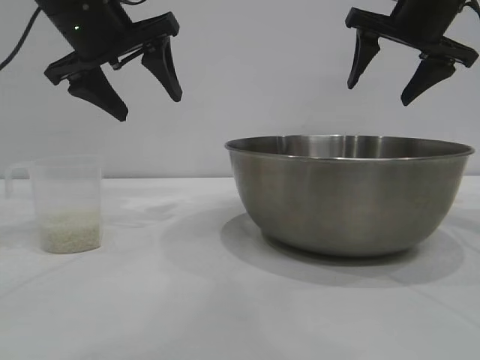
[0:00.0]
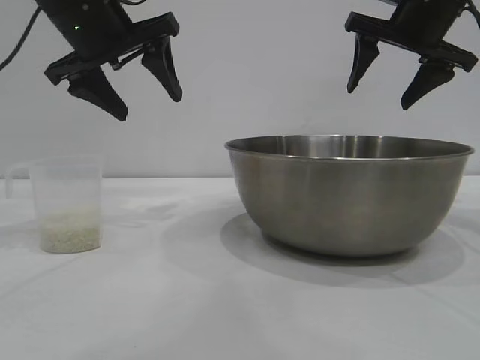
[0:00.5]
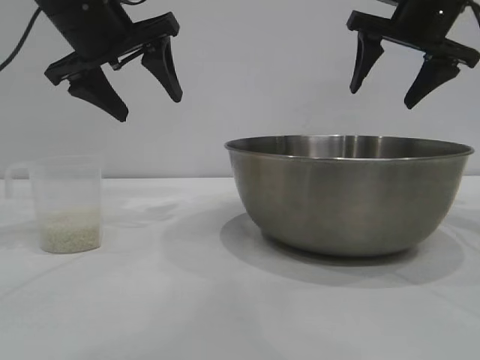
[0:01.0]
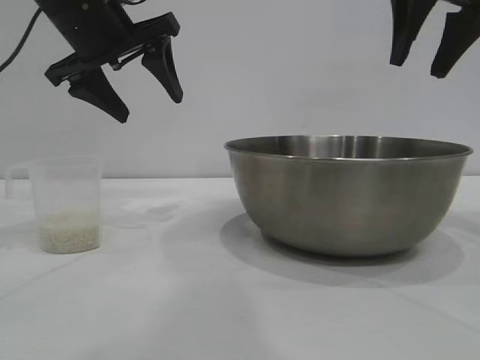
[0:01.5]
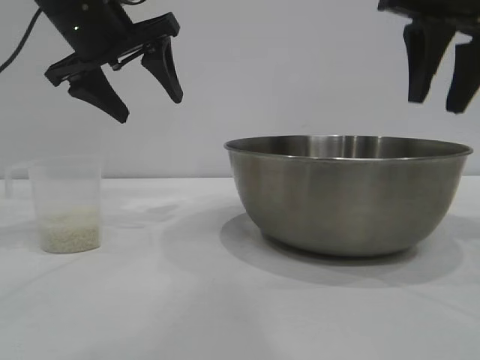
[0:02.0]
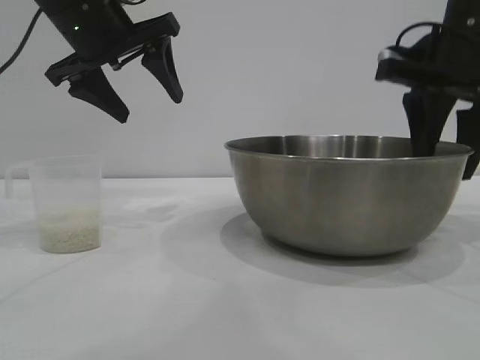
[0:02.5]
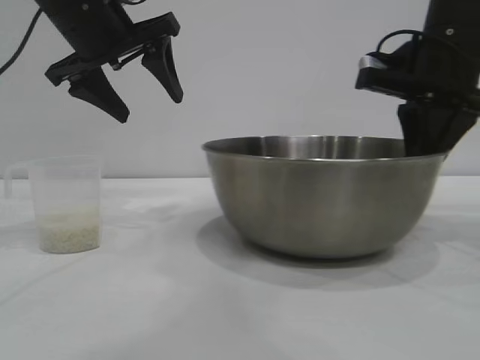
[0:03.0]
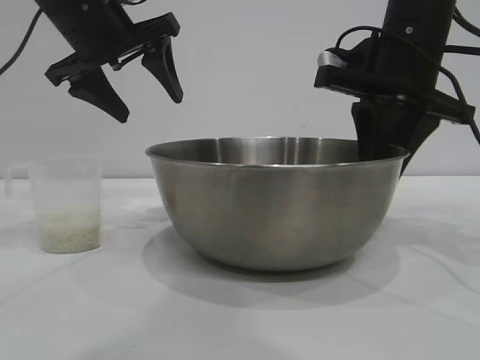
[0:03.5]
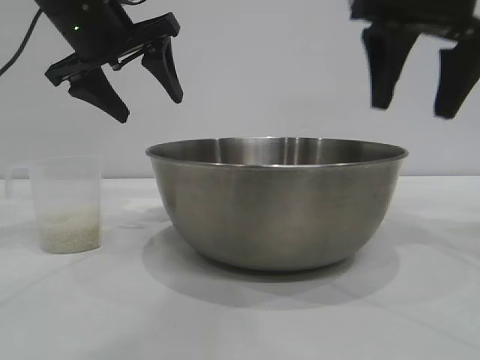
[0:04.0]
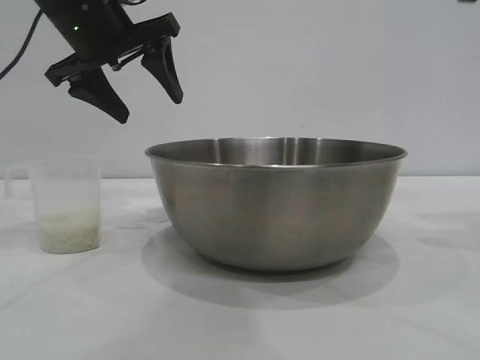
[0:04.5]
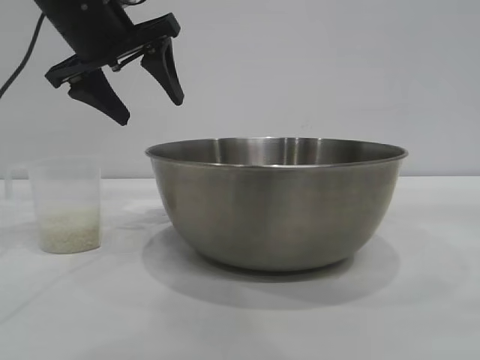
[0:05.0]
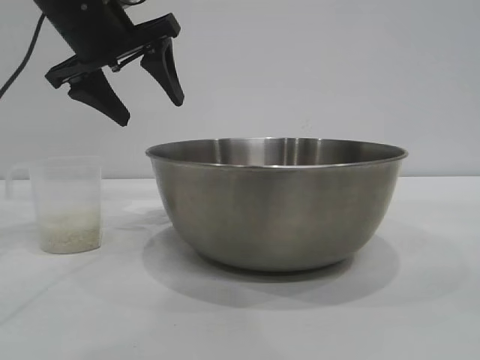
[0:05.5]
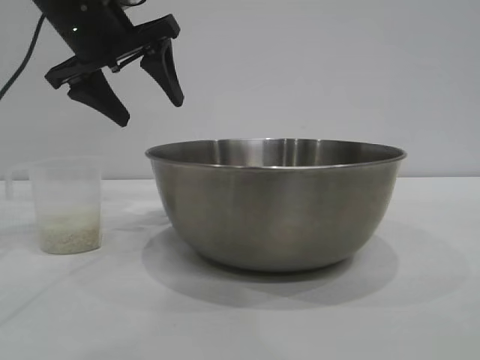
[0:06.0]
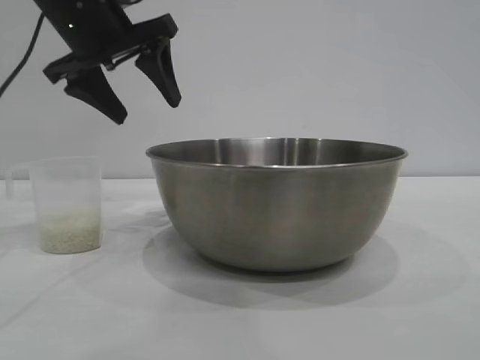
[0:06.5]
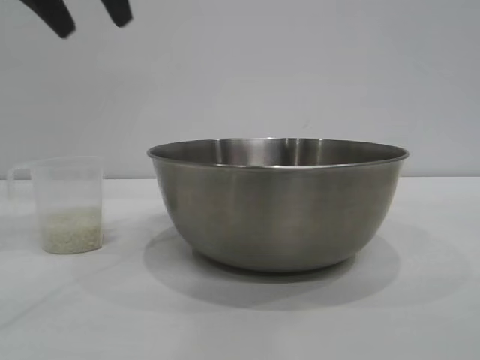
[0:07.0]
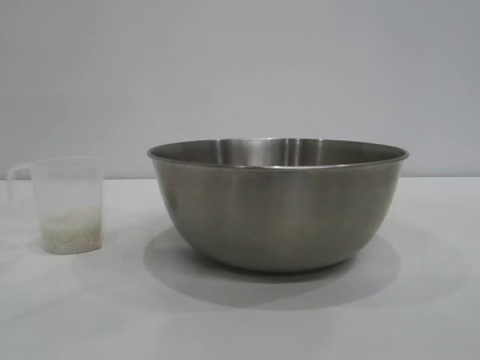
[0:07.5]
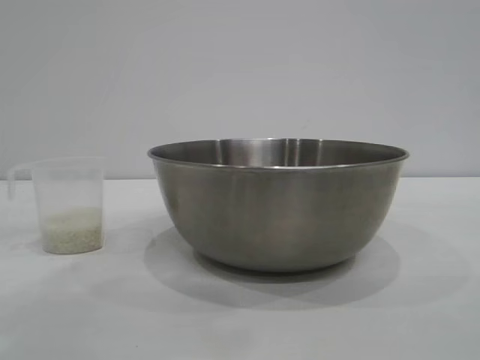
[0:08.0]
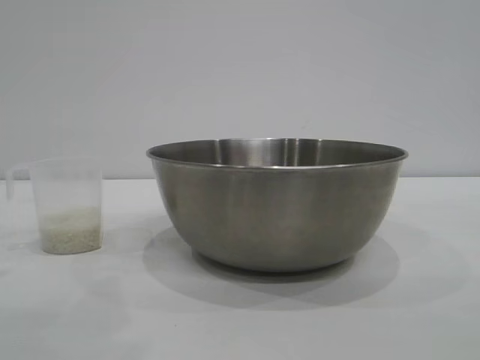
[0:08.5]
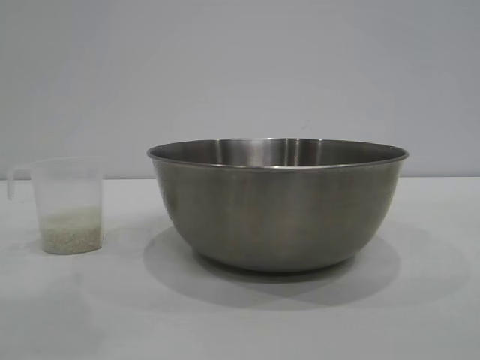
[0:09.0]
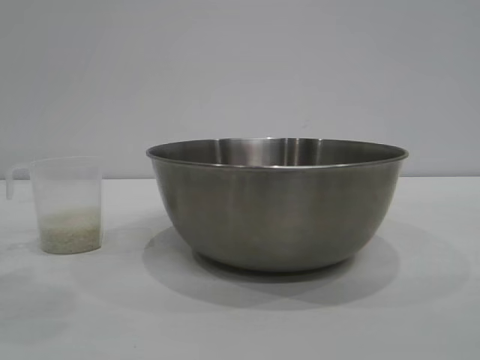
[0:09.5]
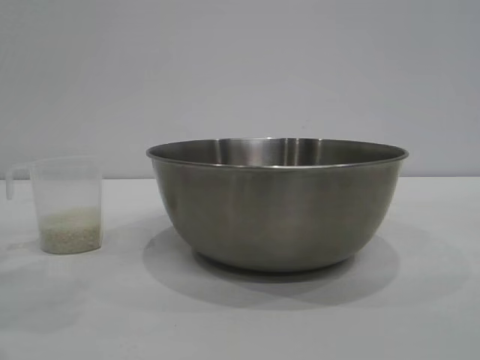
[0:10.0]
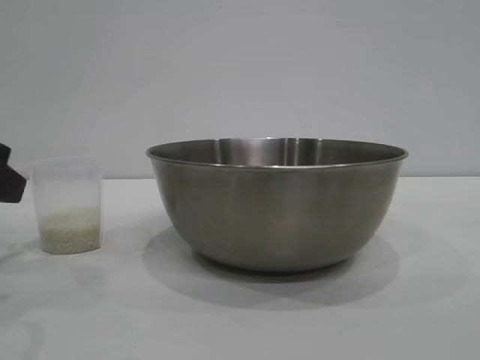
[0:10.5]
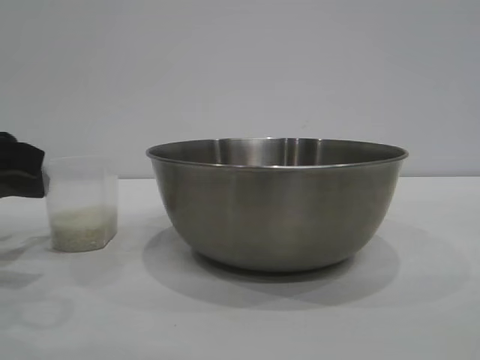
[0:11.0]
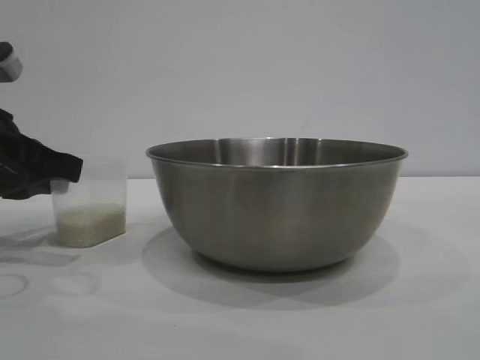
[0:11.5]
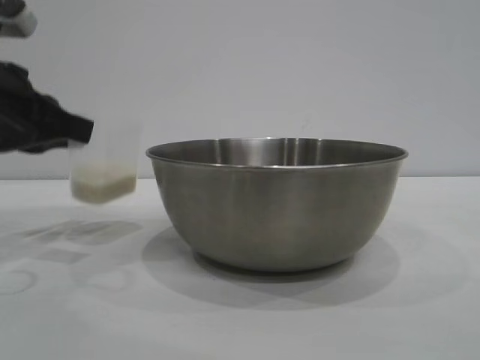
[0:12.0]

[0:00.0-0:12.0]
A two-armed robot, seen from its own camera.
Task of the whole recording: the right gripper grasp the rice container and place it in the center of the table, the left gripper grasp the rice scoop and pour the rice into the rice container.
Step, 0:00.0 to 0:04.0: Move the bowl to the center of view with the right gripper.

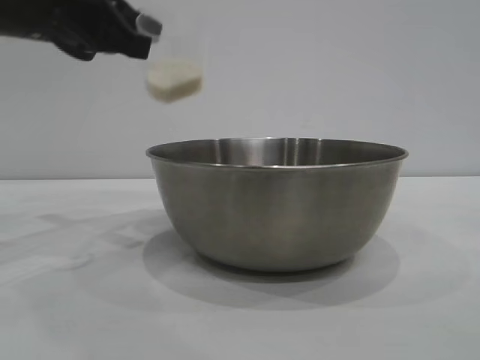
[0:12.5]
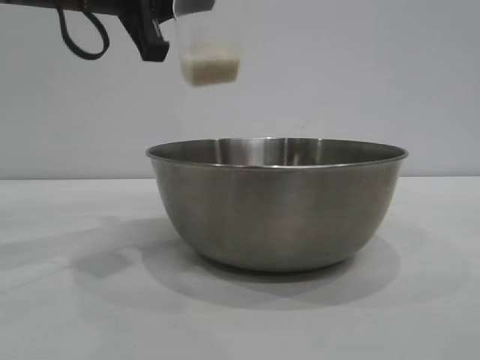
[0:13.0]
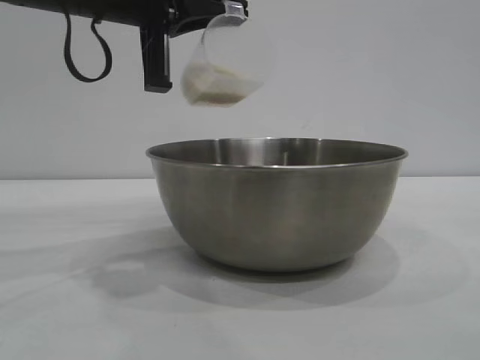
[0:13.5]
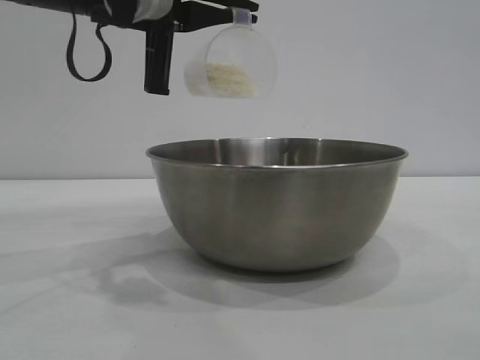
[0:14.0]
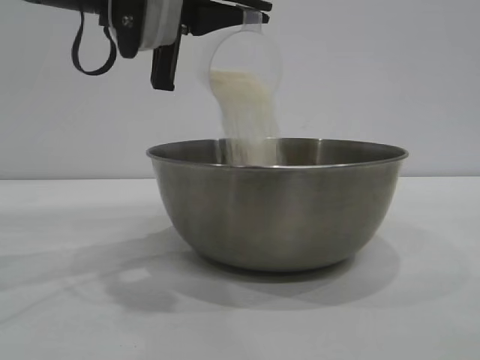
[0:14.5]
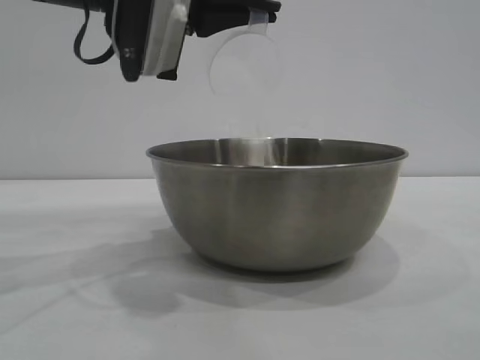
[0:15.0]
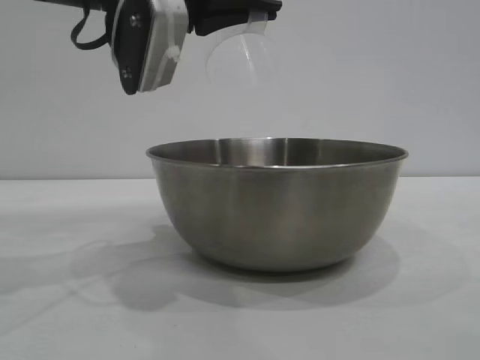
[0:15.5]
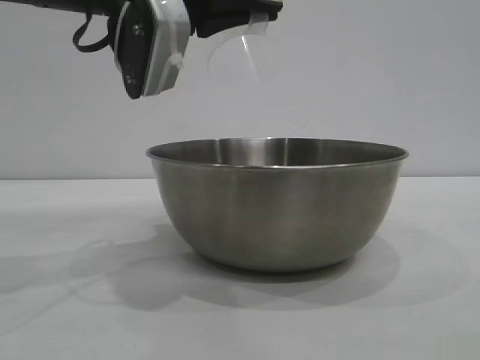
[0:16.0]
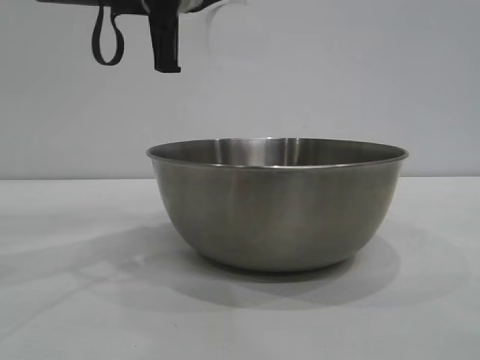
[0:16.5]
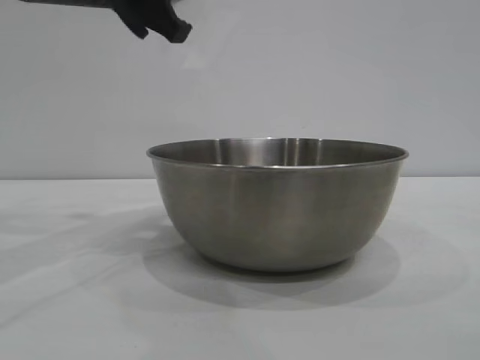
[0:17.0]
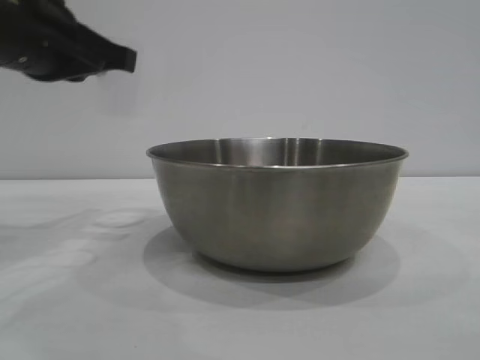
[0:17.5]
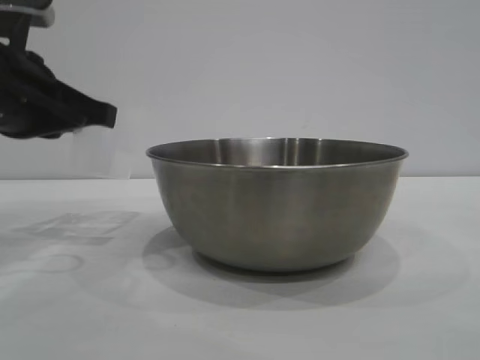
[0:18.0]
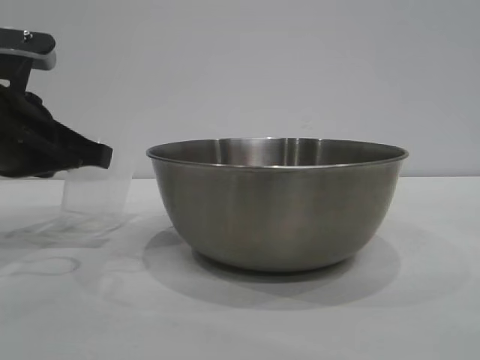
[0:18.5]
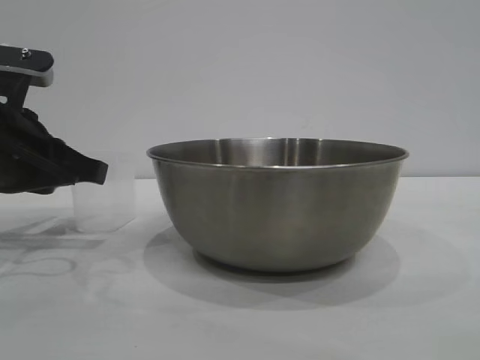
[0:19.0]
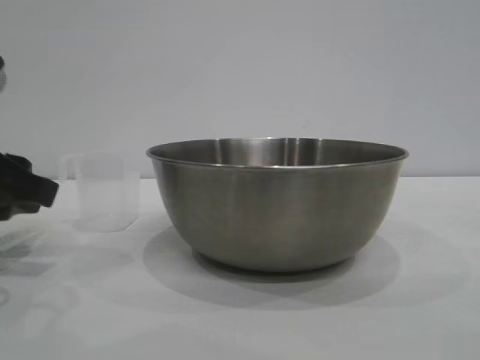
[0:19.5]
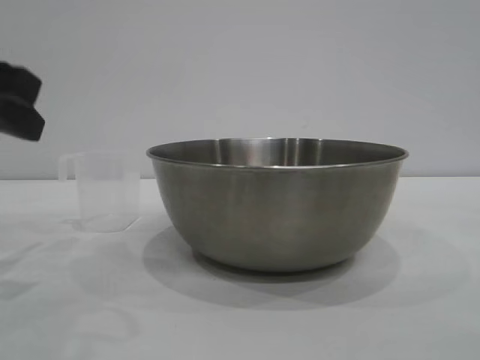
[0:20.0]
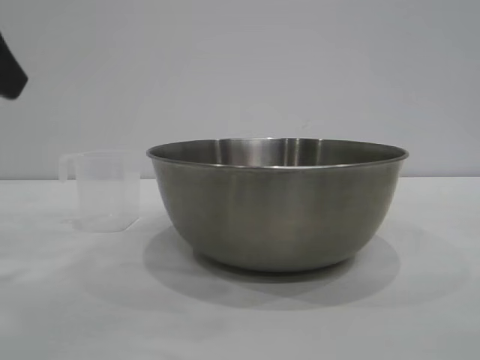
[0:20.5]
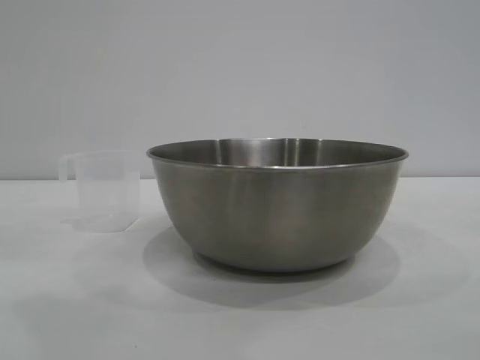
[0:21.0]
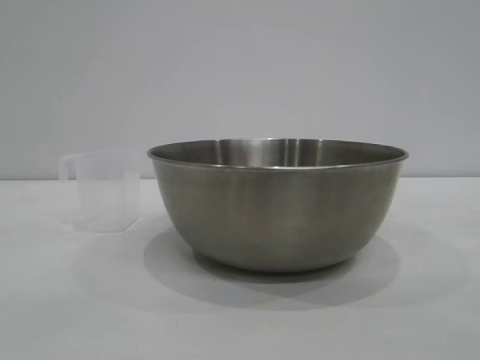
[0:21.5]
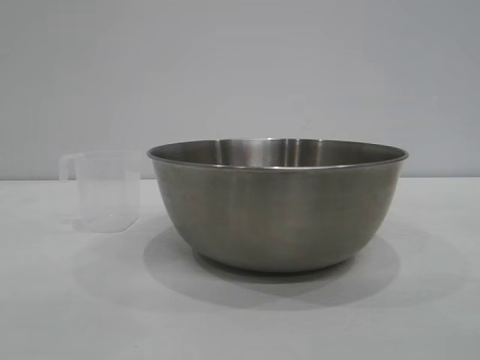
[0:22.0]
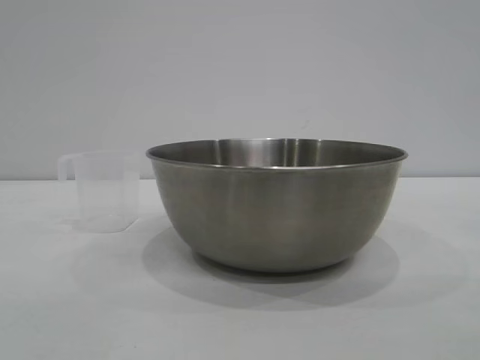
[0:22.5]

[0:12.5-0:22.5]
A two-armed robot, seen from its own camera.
Task of the whole recording: the right gripper grasp the rice container and place it in the center of the table, the left gripper grasp the rice scoop and pour the rice into the rice container.
Step, 0:12.5 to 0:17.0: Pour the rice from the cup into the bowl with the left gripper.
Step, 0:17.5 to 0:19.5: Place the cup on the table with the left gripper.
